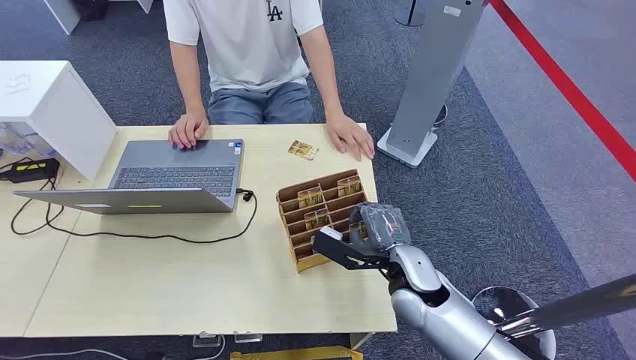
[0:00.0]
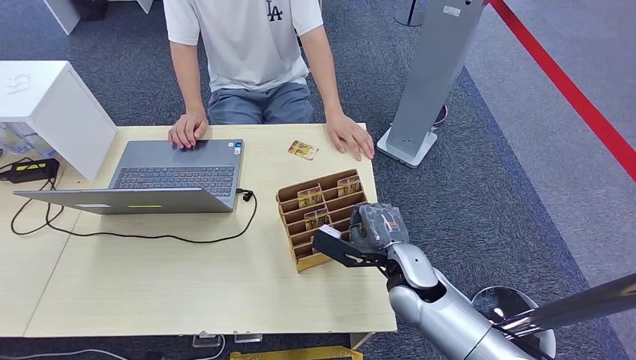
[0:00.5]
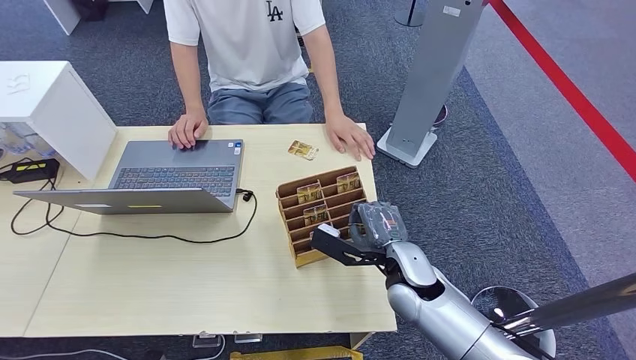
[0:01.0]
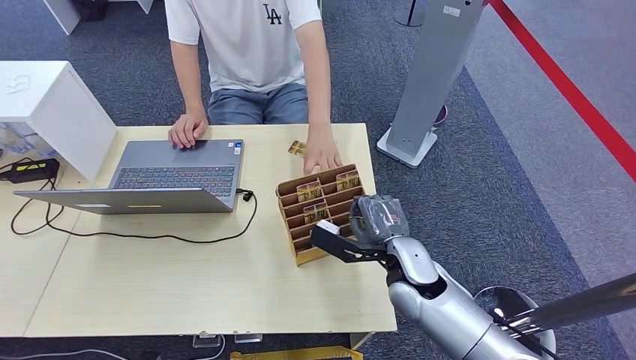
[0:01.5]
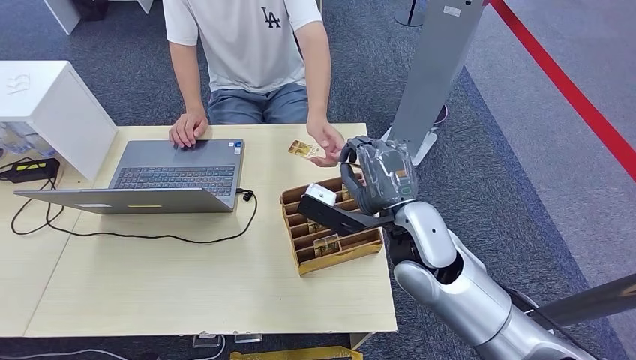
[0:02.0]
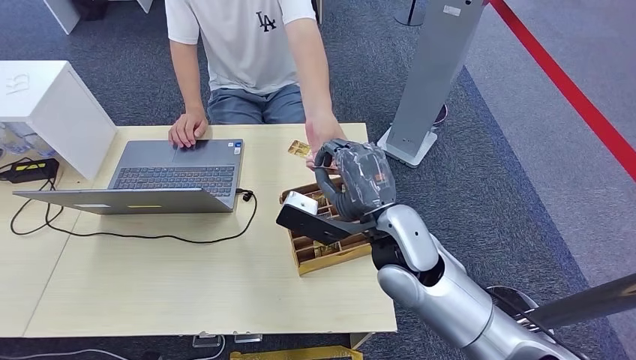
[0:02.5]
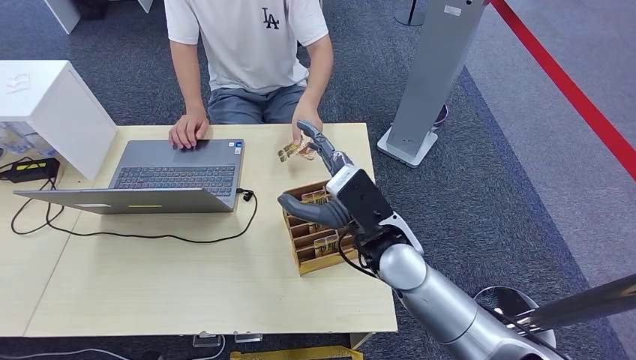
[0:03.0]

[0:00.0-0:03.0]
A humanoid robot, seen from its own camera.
Step, 0:00.0 to 0:01.5: Pick up the key card from the card box.
Step, 0:02.0 to 0:03.0: Hand the key card to the target.
0:01.5 to 0:03.0: The right hand goes approximately 10 cm upward and to the left.
